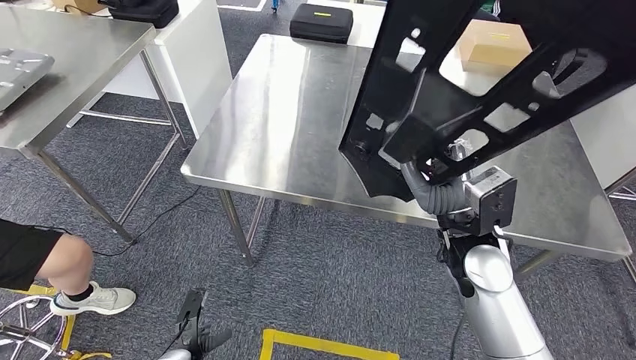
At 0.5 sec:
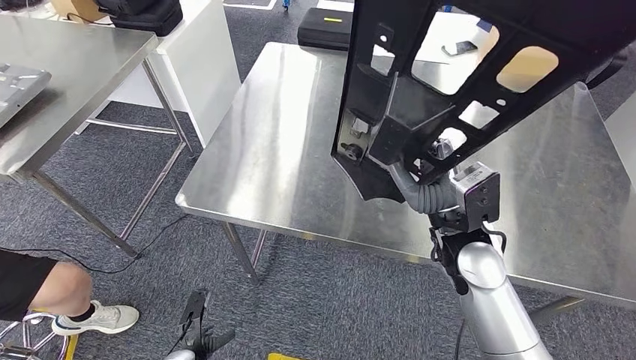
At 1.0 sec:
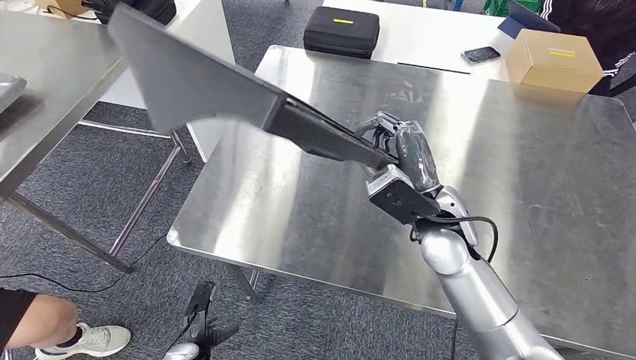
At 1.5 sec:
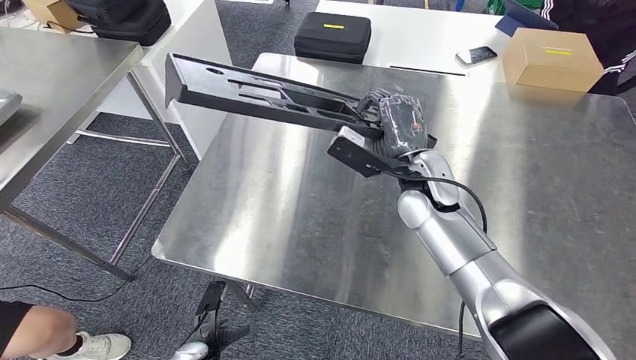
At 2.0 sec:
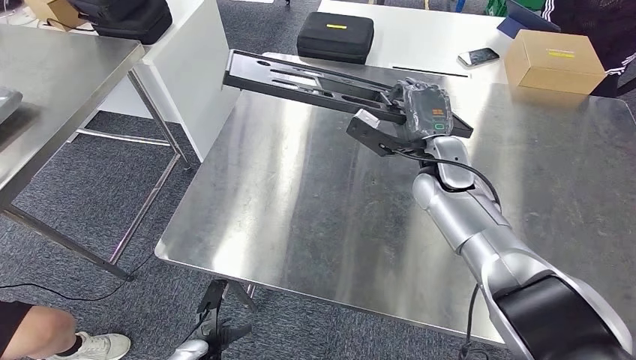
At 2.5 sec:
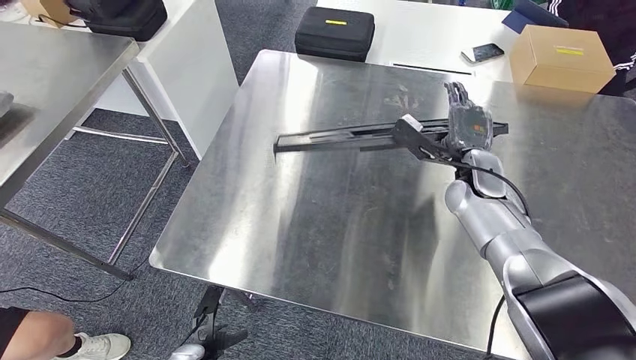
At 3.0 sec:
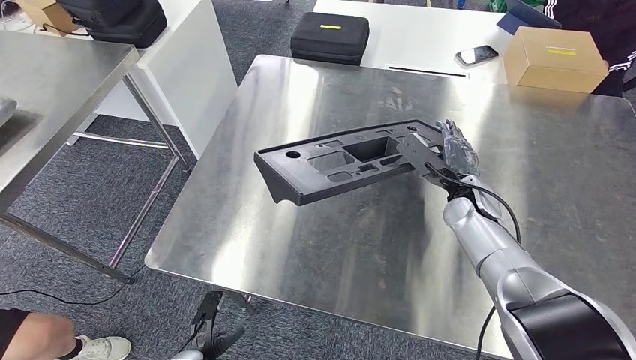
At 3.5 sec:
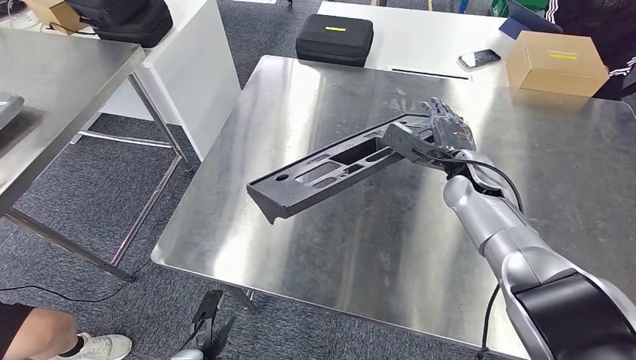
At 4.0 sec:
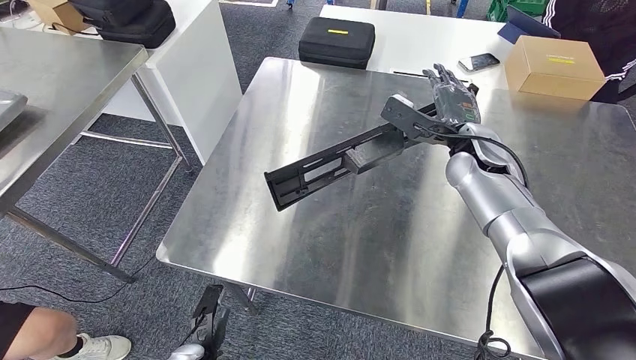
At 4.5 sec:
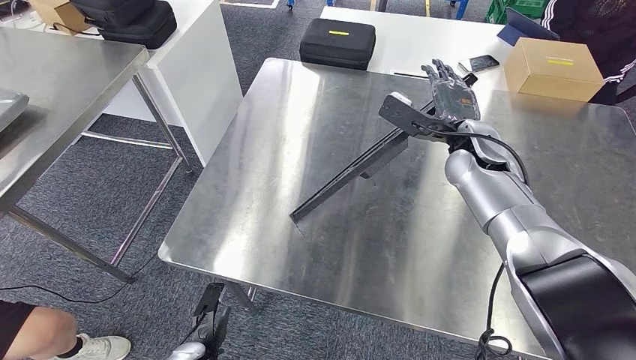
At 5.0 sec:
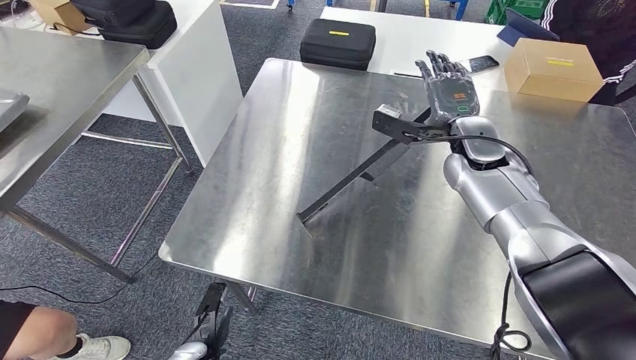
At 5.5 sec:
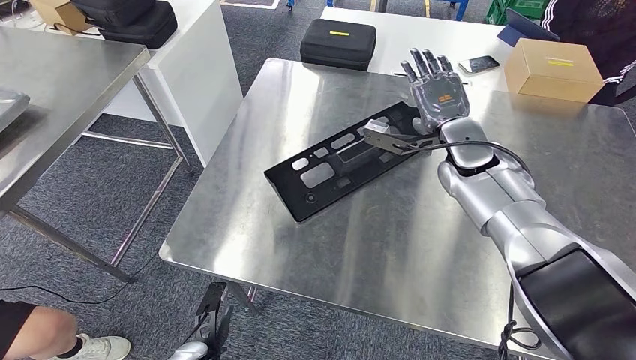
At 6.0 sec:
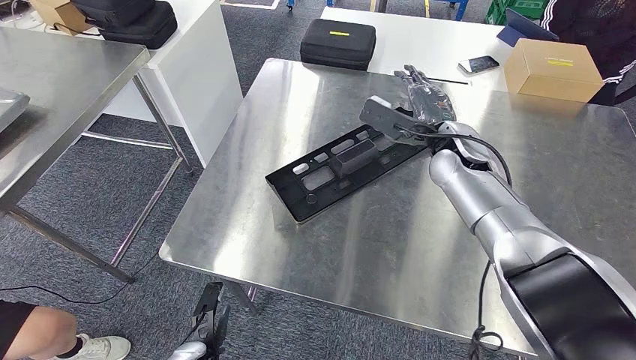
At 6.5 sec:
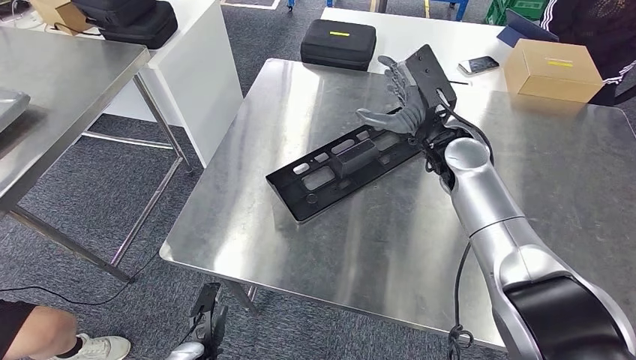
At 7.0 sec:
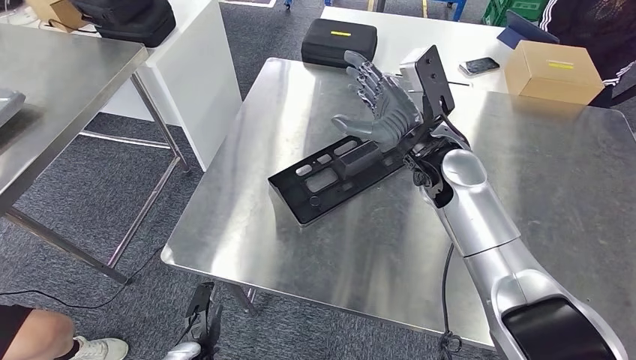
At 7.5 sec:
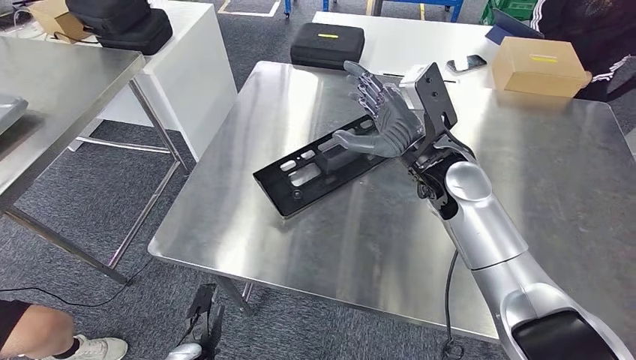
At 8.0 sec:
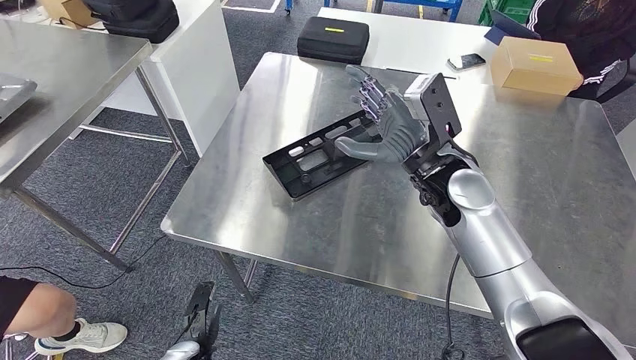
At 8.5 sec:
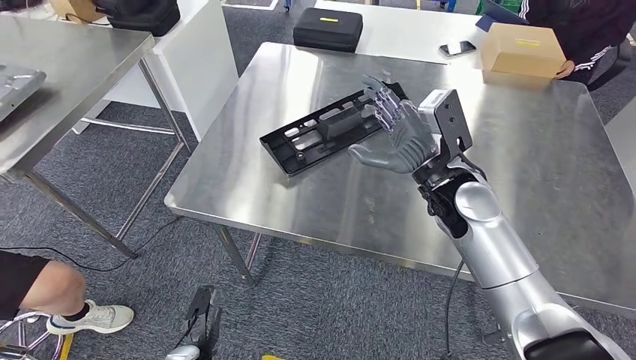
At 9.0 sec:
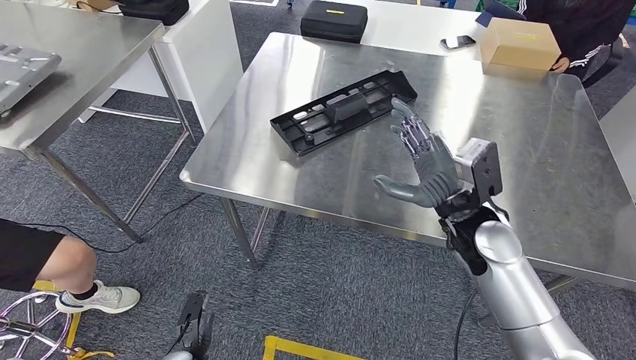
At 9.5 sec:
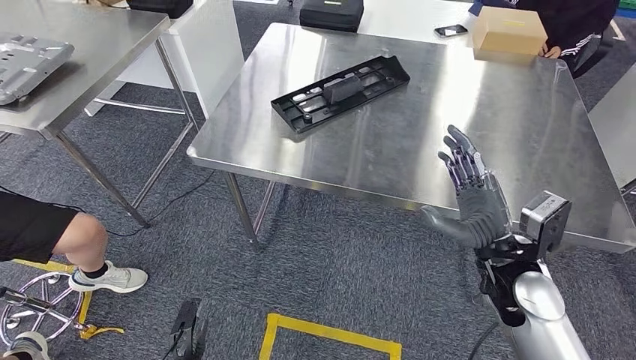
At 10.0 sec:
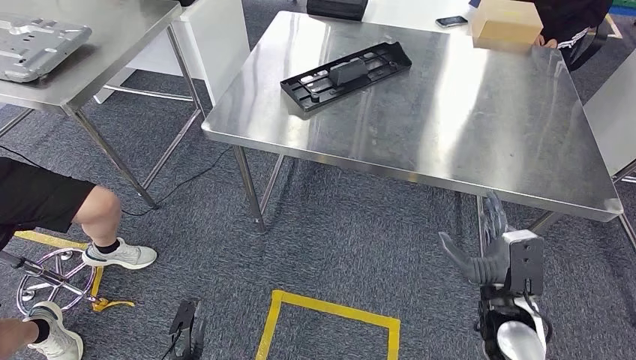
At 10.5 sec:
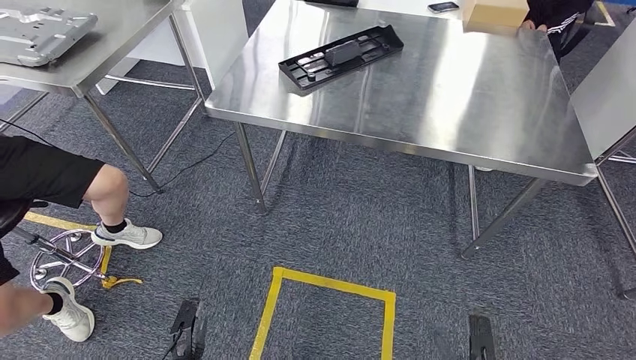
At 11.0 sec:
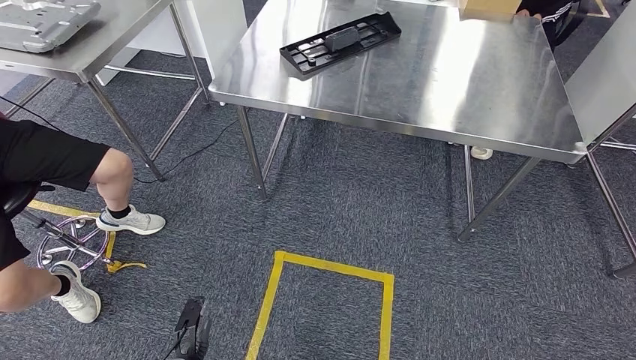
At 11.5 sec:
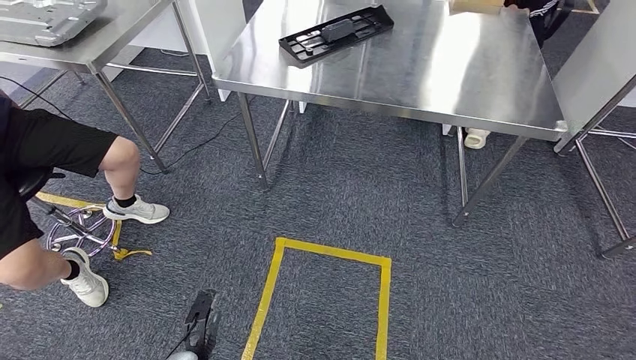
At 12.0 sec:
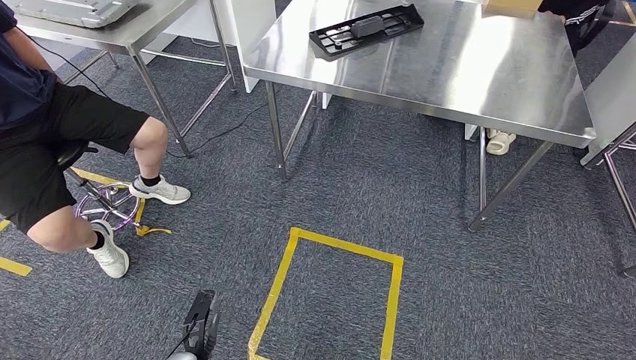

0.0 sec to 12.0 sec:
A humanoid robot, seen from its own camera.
Step, 0.0 sec to 9.0 sec: Insert the large parts into the corresponding slots on the workbench.

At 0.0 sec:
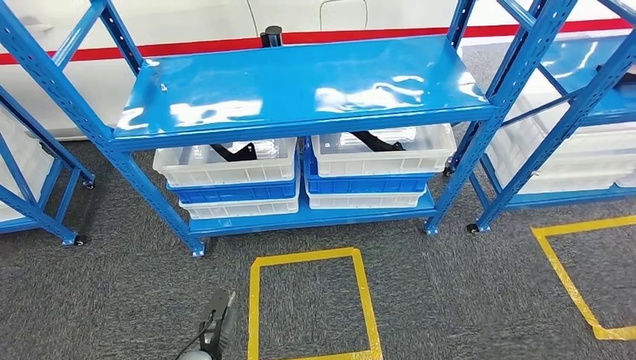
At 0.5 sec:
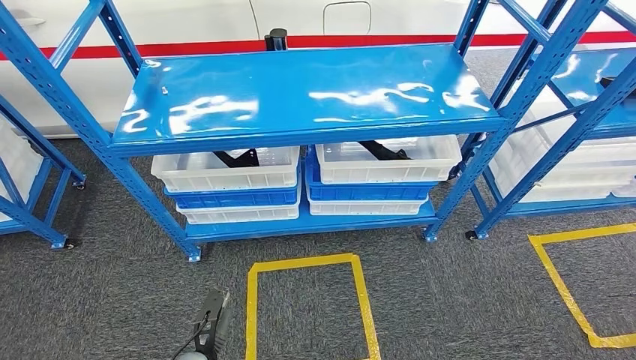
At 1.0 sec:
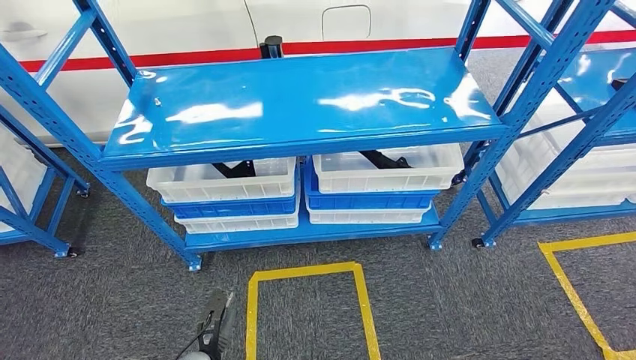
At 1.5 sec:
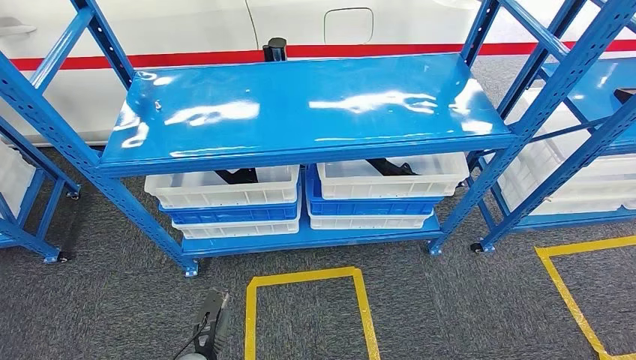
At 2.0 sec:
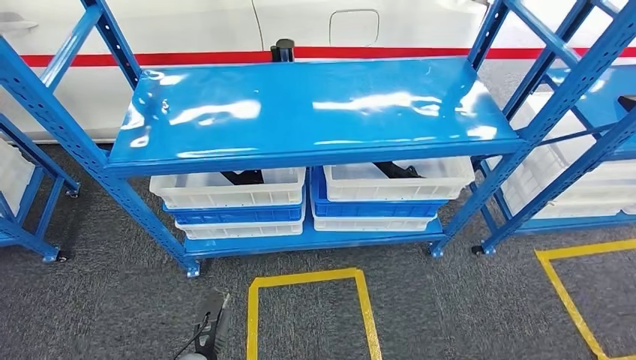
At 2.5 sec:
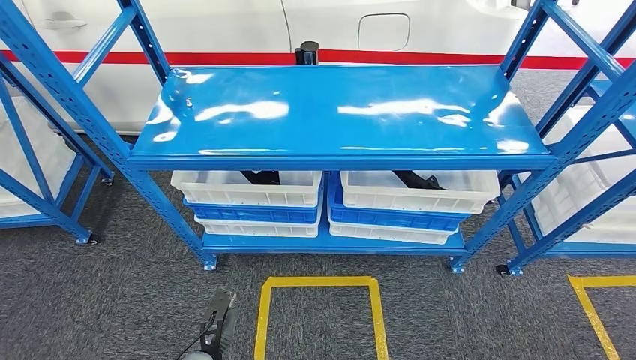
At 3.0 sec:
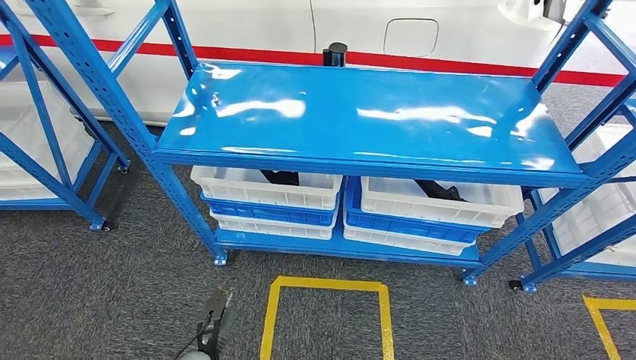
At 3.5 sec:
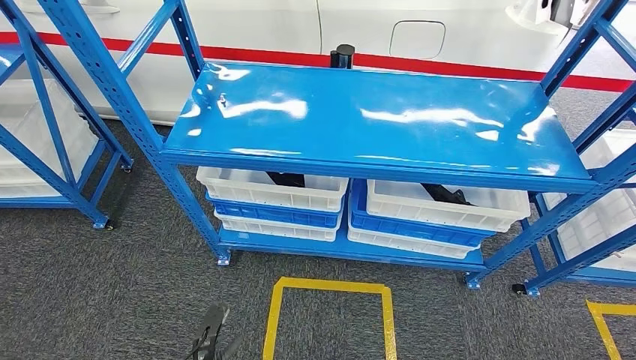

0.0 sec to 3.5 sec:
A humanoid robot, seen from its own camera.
Step, 0.0 sec to 3.5 sec: Return to the initial position at the shelf.
